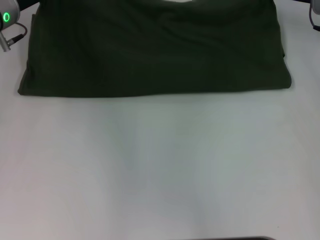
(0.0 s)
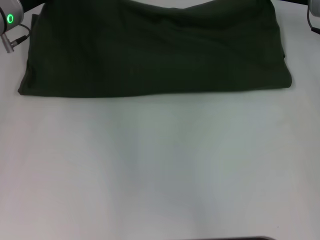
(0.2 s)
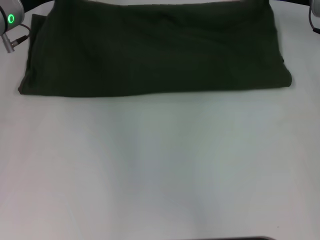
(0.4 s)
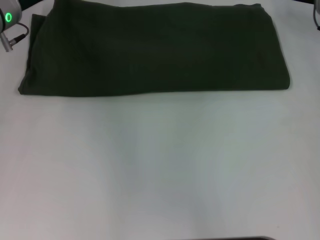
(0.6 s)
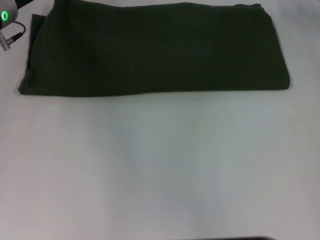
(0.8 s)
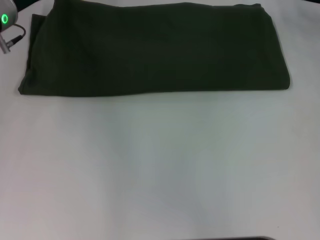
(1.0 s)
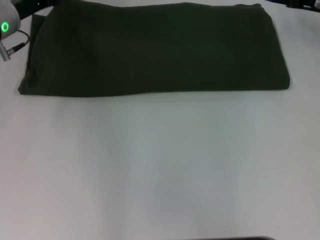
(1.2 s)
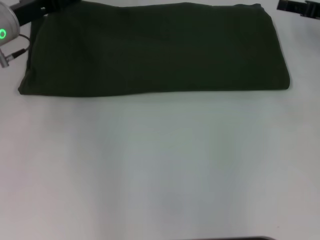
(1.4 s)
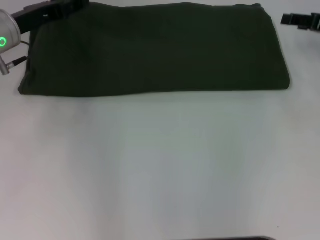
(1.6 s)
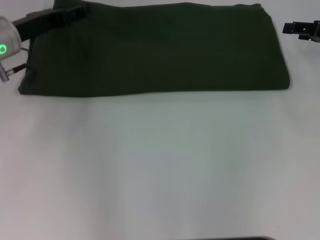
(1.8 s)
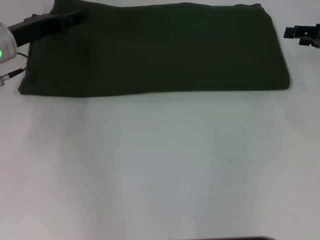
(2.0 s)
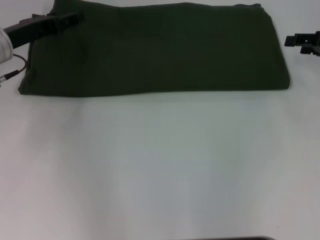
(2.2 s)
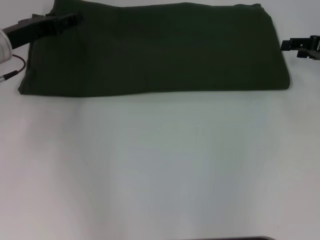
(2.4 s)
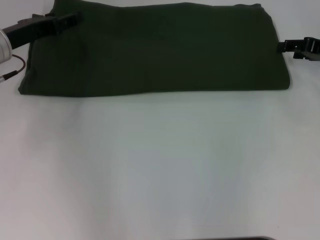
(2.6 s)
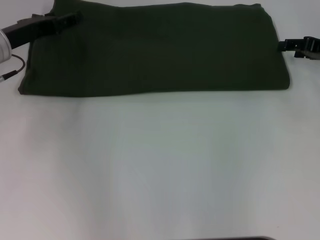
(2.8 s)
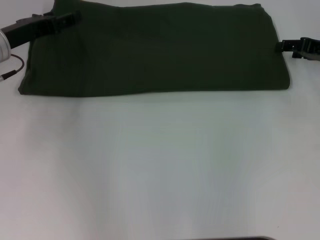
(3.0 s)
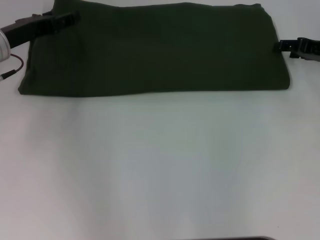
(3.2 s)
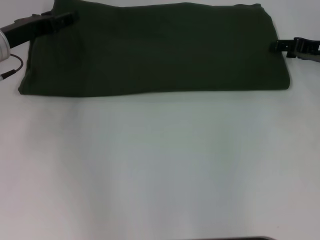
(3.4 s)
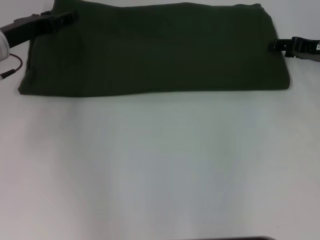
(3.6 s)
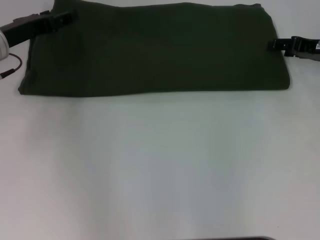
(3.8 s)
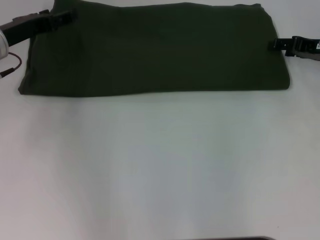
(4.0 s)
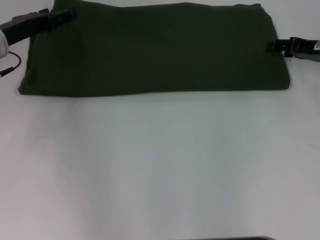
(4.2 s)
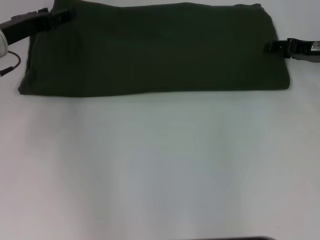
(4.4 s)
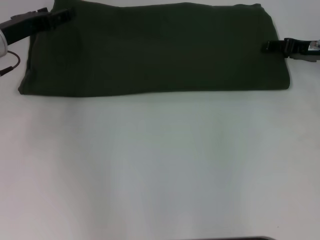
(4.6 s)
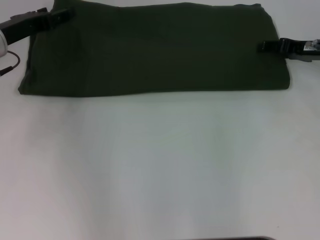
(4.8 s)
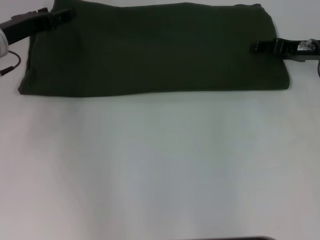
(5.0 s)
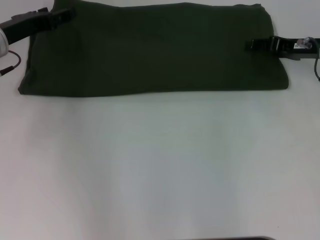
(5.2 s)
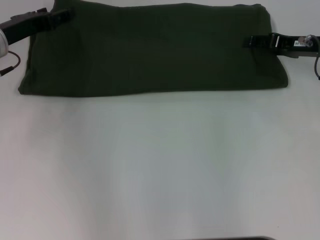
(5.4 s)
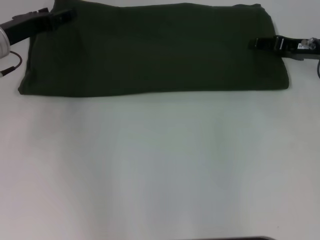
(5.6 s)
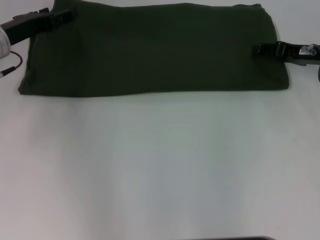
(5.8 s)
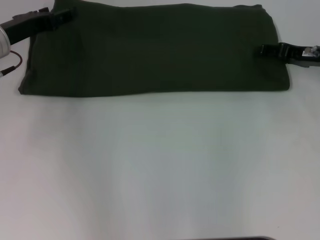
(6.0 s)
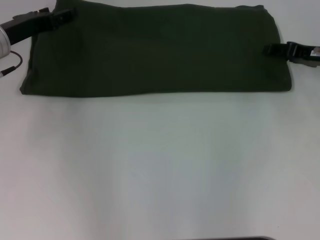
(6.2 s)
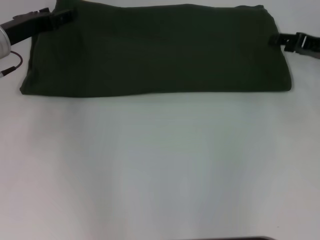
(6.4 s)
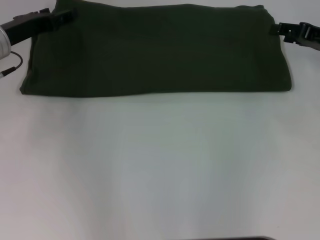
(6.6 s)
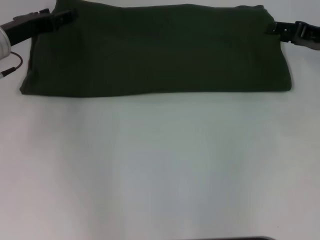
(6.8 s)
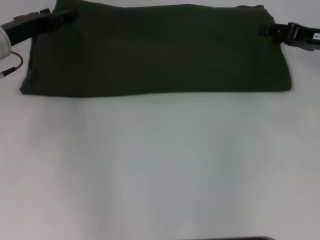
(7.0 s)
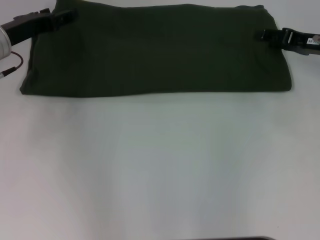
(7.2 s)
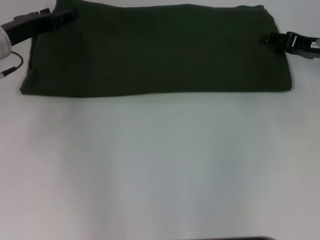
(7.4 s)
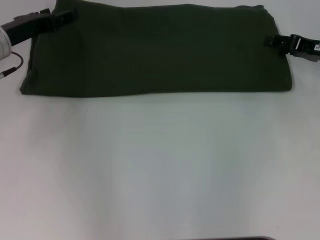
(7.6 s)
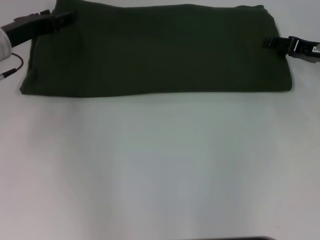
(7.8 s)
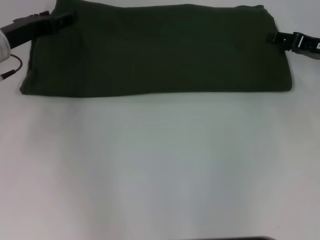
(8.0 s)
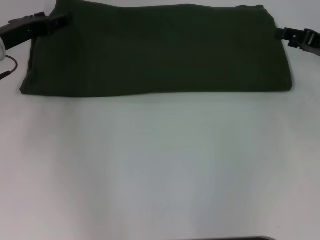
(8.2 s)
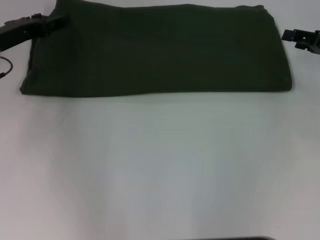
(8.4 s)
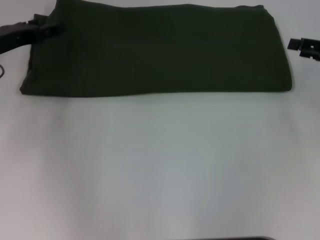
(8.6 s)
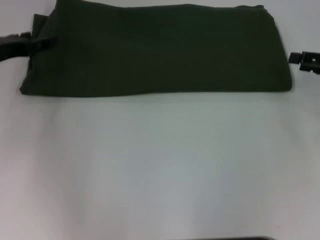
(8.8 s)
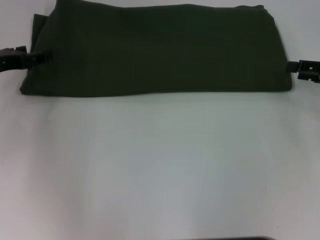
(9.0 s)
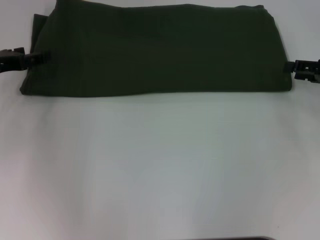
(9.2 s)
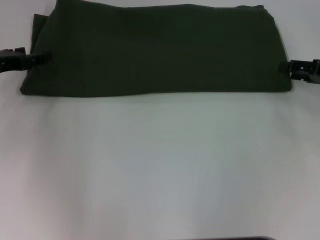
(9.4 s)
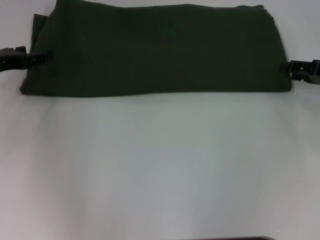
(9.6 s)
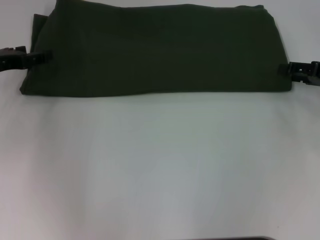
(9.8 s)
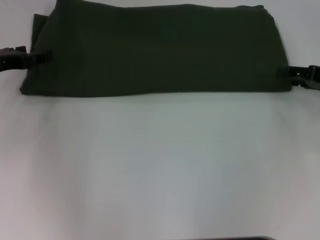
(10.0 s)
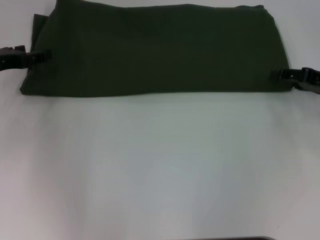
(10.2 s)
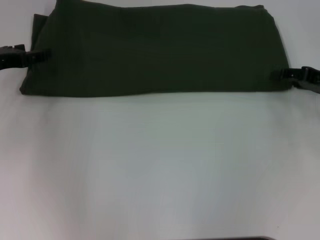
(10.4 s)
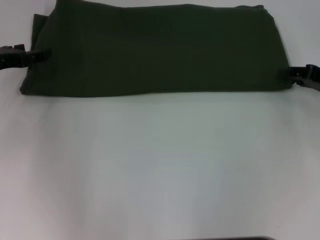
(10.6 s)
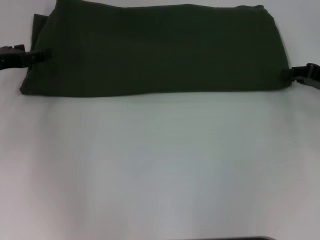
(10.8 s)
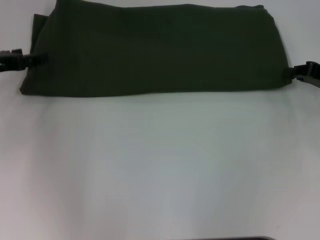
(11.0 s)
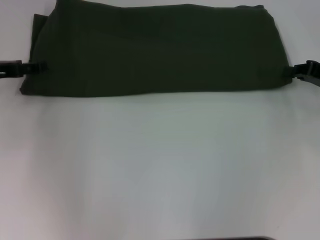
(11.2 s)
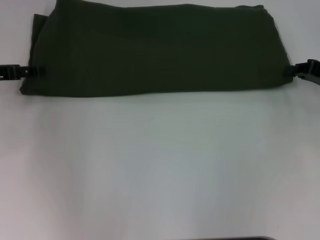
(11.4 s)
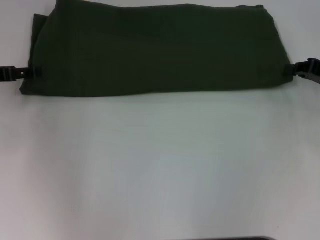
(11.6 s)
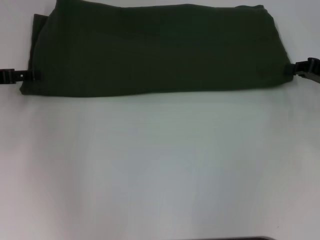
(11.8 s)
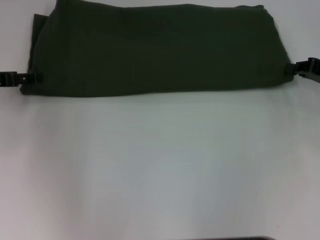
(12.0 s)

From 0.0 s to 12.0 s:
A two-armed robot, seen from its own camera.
From 0.0 s to 1.6 s: The right gripper heads to the right and backward, covering about 10 cm, and opens its fingers. Meanwhile the left gripper opens up.
From 1.6 s to 7.6 s: There are only small adjustments of the grippers.
From 7.6 s to 9.0 s: The left gripper goes some 5 cm to the left. Meanwhile the right gripper goes approximately 5 cm backward.
From 9.0 s to 10.4 s: The grippers make only small movements.
From 10.4 s to 12.0 s: The right gripper closes.

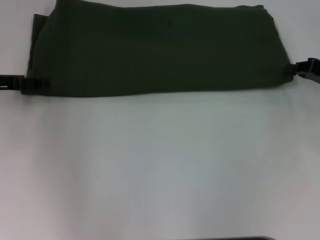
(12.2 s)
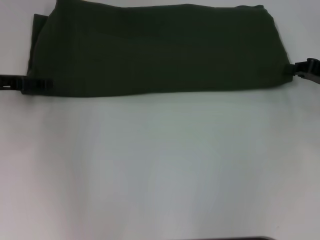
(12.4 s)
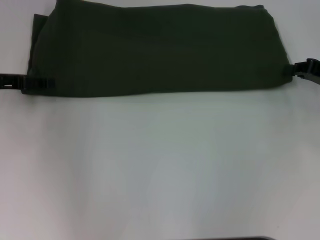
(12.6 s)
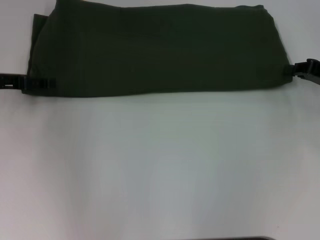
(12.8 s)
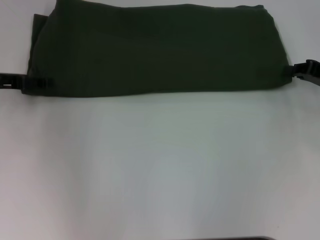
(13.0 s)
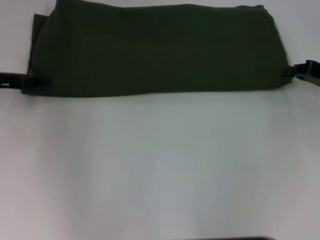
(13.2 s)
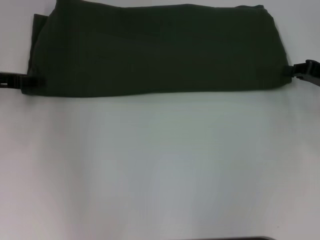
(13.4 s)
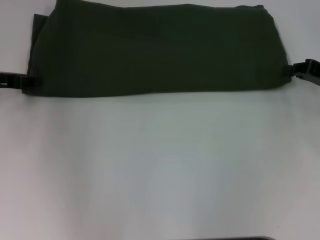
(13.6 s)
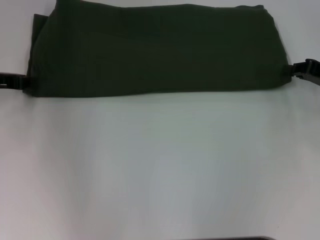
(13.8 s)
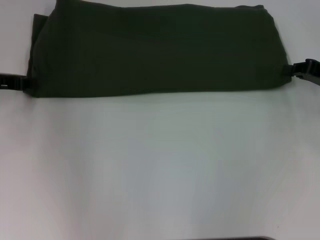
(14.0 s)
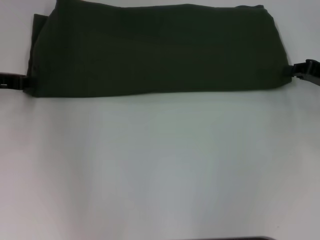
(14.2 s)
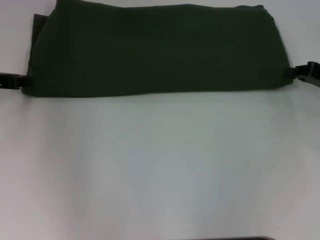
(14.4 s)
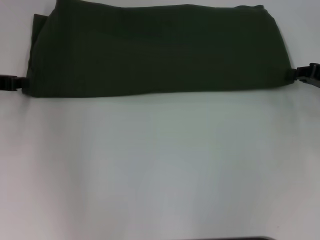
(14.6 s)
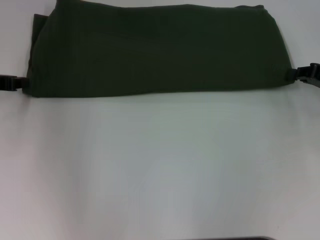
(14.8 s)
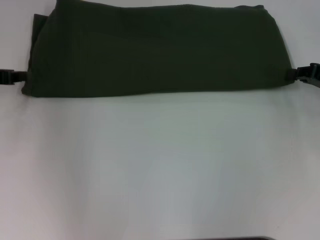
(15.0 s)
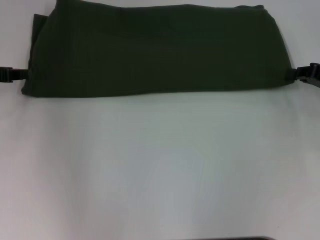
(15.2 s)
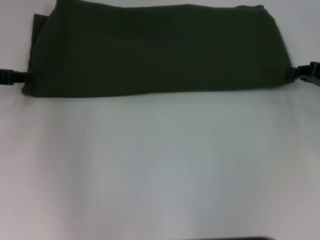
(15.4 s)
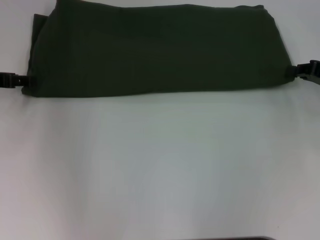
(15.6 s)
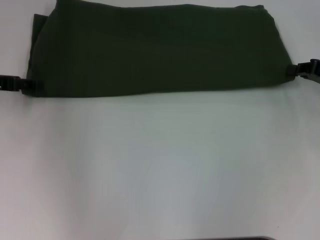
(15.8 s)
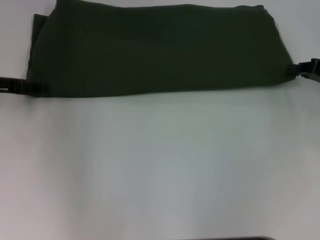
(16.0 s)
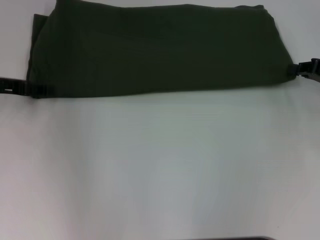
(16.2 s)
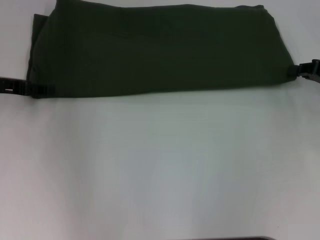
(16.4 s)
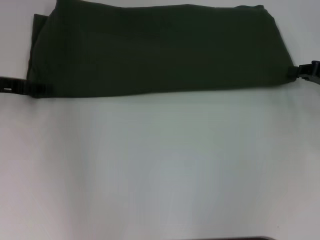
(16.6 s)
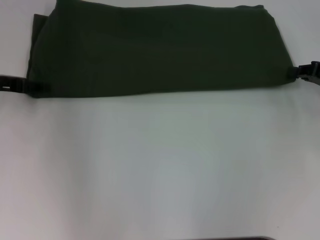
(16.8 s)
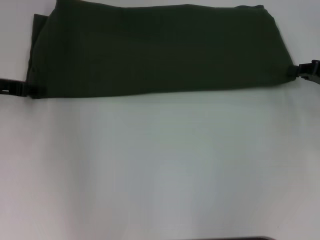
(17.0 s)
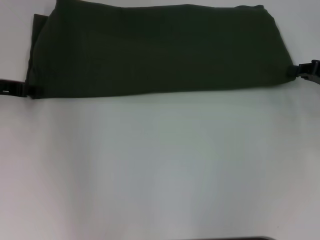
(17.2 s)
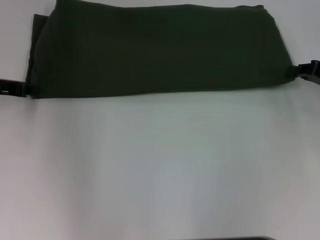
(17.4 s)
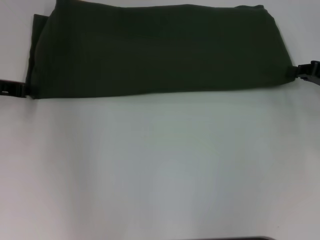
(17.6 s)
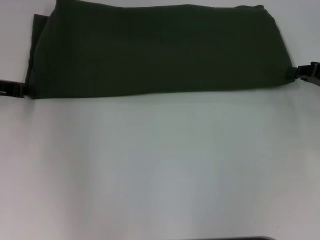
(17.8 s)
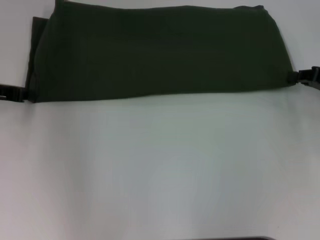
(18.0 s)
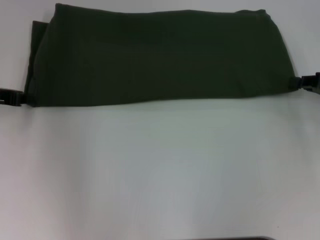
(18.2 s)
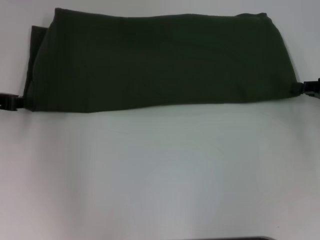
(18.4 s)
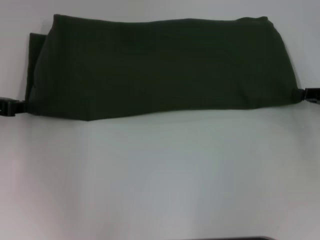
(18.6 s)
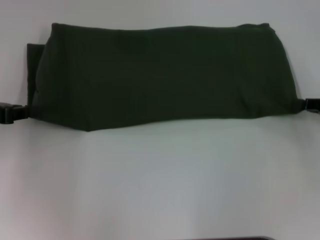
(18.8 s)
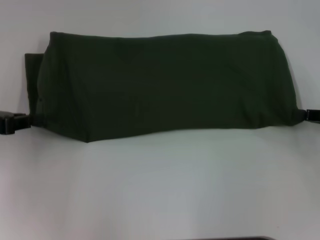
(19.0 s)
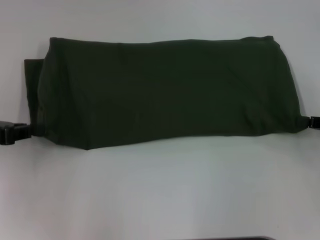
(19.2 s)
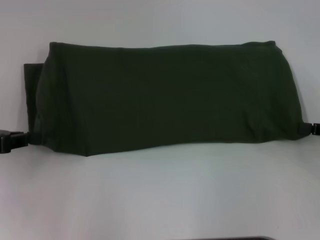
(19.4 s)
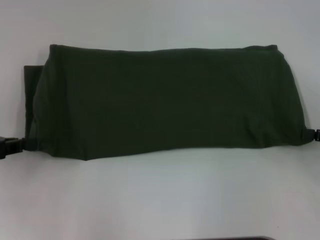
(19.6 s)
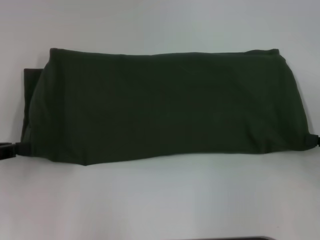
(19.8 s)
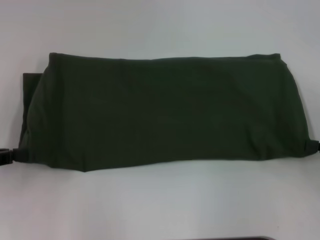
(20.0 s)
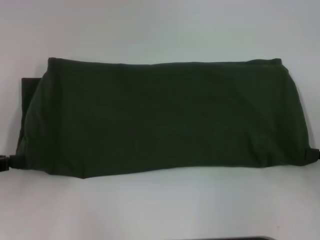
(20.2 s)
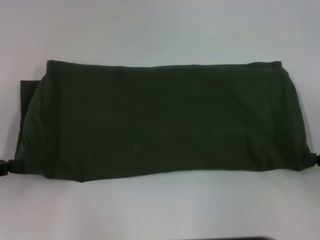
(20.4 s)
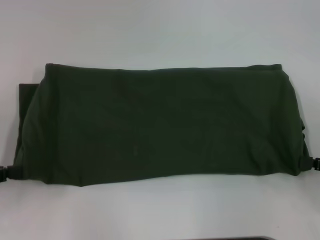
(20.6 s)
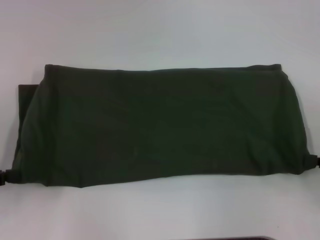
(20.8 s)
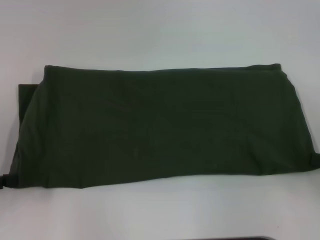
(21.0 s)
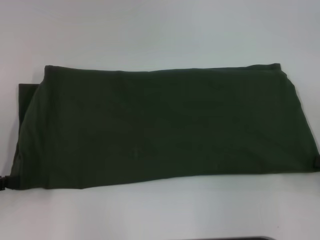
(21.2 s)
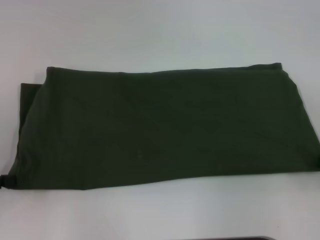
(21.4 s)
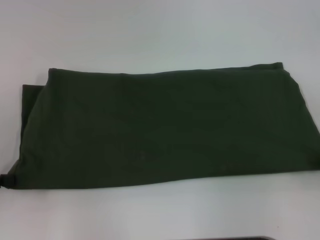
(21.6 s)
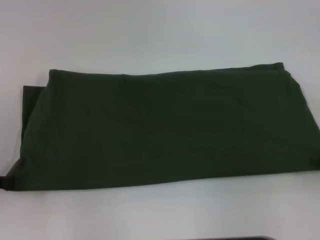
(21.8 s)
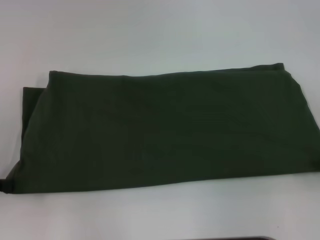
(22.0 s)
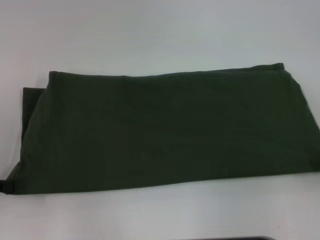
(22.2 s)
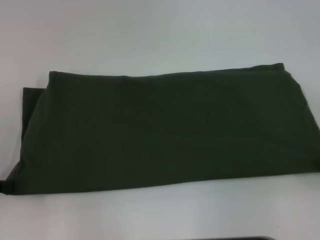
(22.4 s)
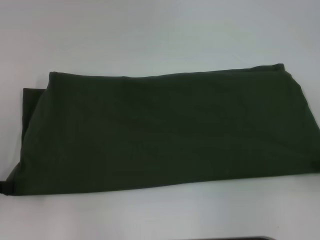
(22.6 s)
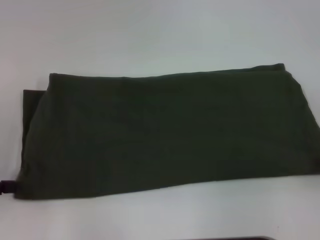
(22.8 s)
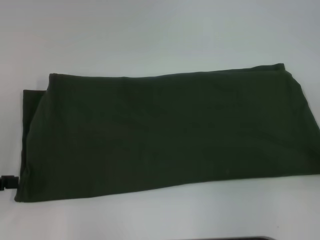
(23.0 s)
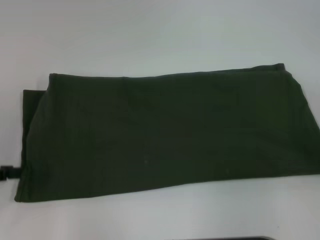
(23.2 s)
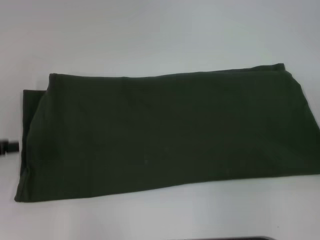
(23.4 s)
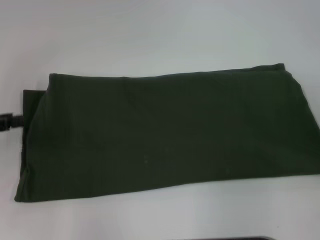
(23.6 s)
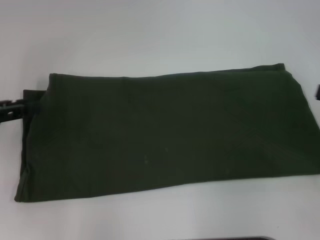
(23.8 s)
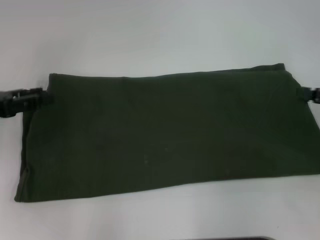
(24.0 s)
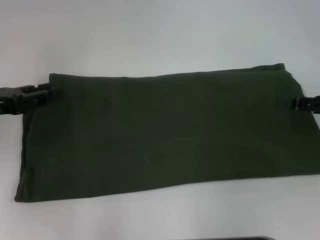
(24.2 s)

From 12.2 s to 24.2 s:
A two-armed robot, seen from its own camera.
From 13.8 s to 15.2 s: The grippers make only small movements.
From 15.2 s to 16.6 s: The left gripper opens up.
From 16.6 s to 18.2 s: The left gripper closes up.
From 18.2 s to 19.8 s: Both grippers move backward, some 10 cm.
From 19.8 s to 22.6 s: The grippers make only small movements.
From 22.6 s to 24.2 s: The right gripper is displaced forward and to the left by about 10 cm, and opens up; the left gripper heads forward and to the right, covering approximately 10 cm, and opens up.
